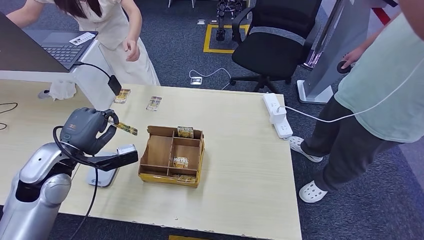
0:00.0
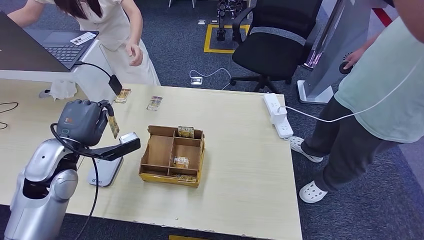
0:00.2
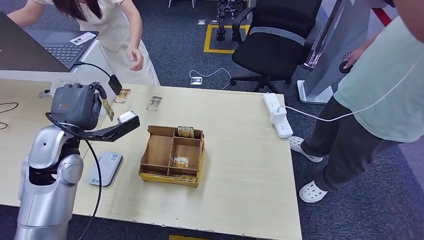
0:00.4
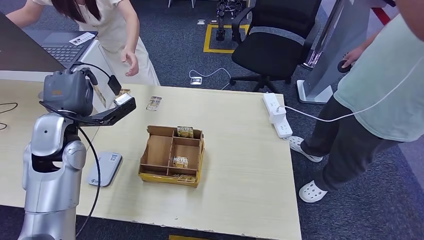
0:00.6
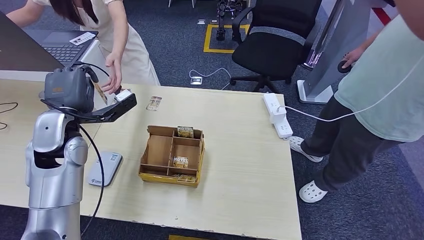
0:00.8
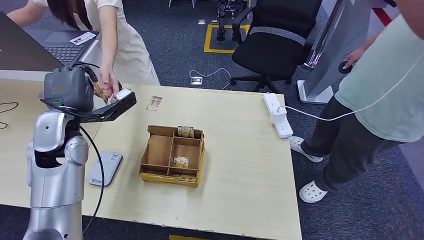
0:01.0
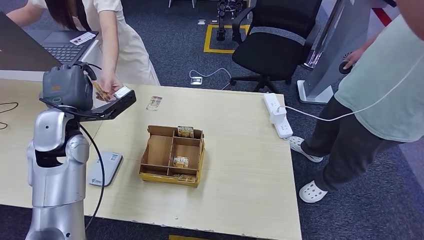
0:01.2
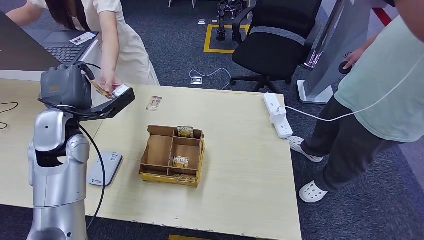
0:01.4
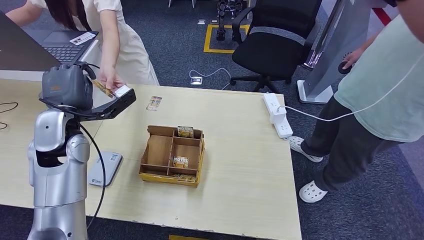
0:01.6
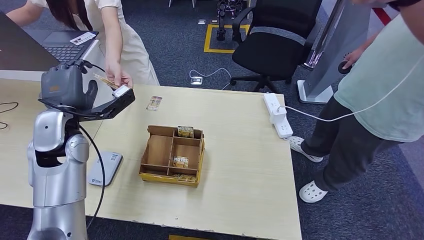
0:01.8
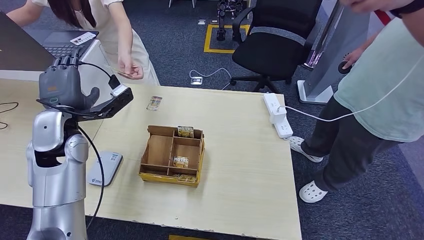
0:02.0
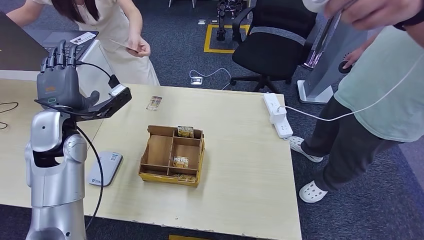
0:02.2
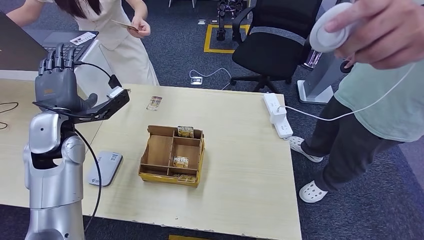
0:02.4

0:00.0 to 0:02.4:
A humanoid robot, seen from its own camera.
Step, 0:00.0 to 0:02.4: Hand the room key to the person.
0:00.0 to 0:01.2: The left hand is displaced forward and upward by approximately 10 cm.
0:01.2 to 0:02.4: Both hands stay about where they are.
